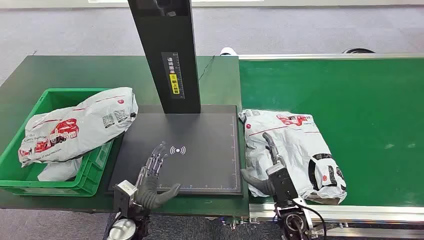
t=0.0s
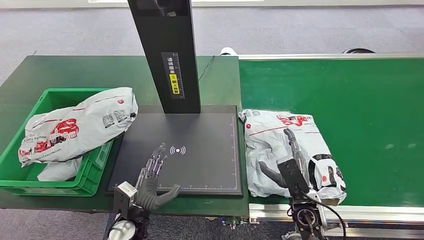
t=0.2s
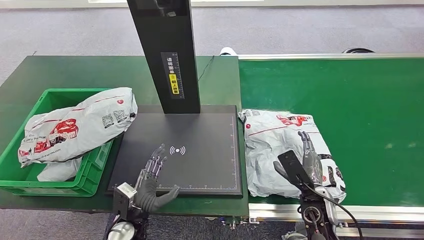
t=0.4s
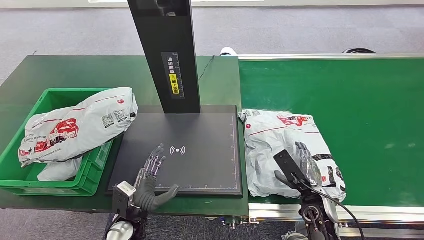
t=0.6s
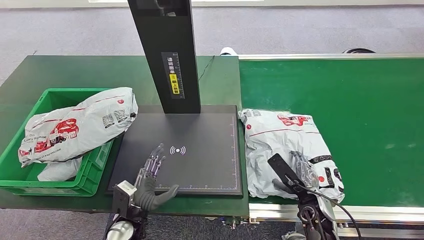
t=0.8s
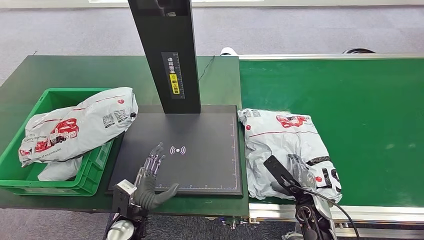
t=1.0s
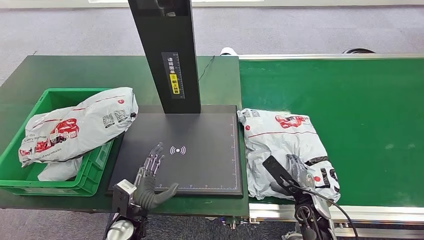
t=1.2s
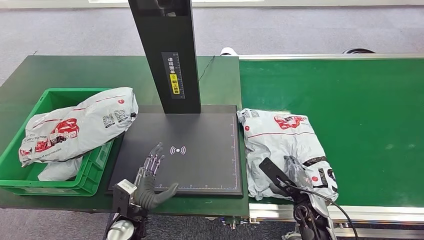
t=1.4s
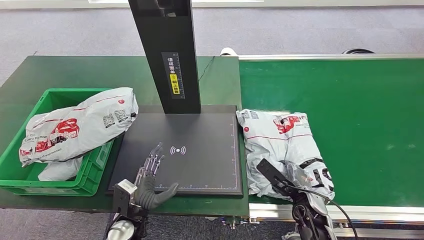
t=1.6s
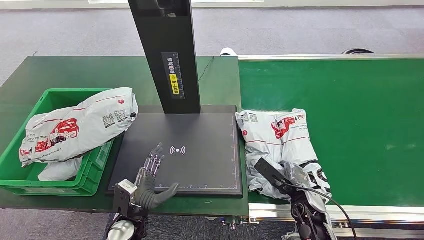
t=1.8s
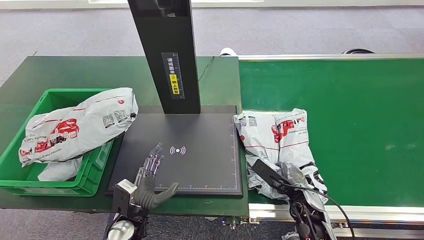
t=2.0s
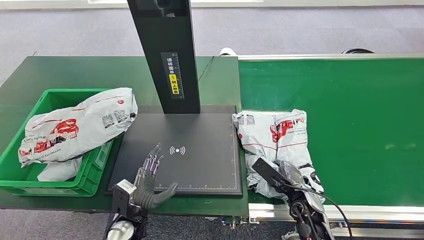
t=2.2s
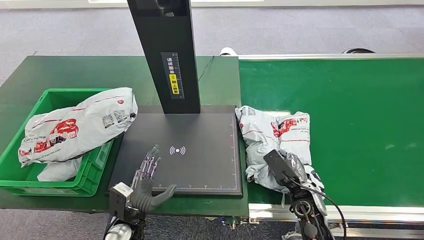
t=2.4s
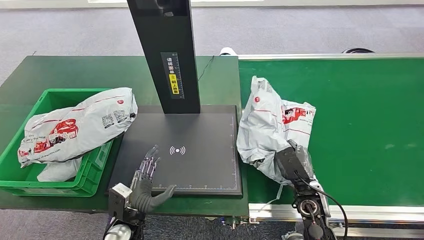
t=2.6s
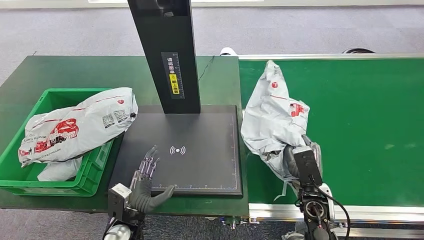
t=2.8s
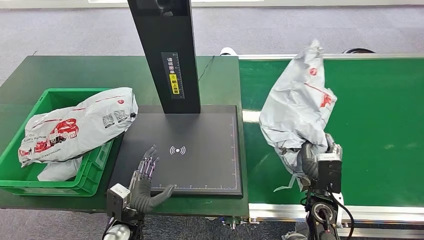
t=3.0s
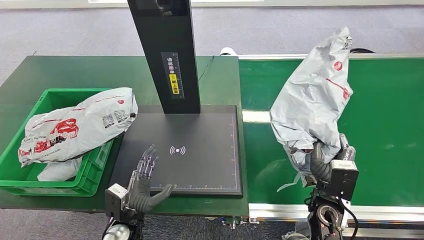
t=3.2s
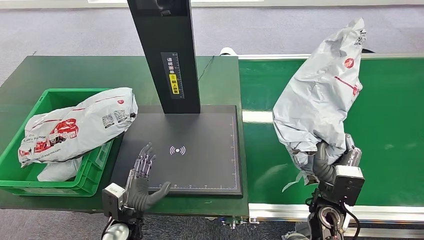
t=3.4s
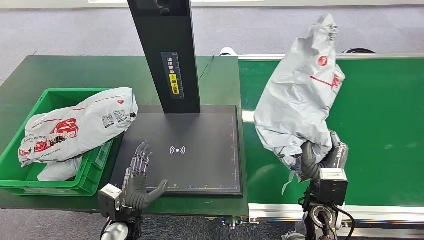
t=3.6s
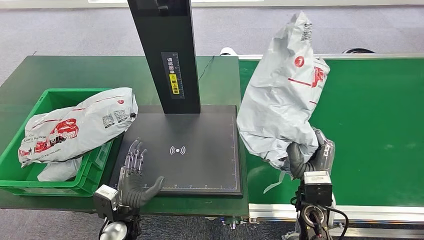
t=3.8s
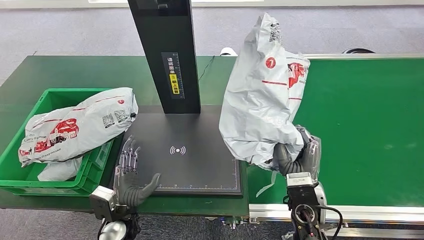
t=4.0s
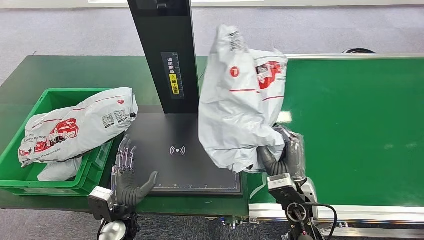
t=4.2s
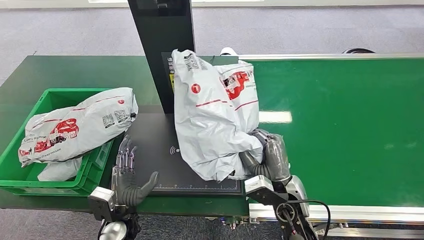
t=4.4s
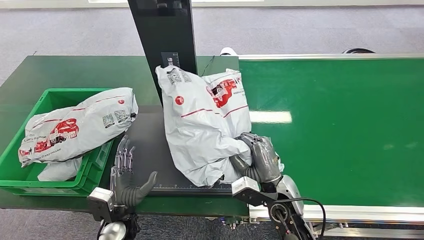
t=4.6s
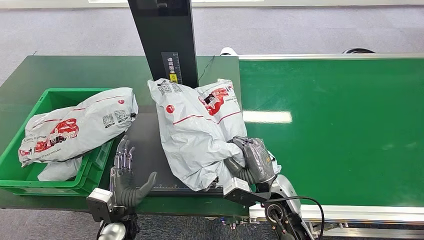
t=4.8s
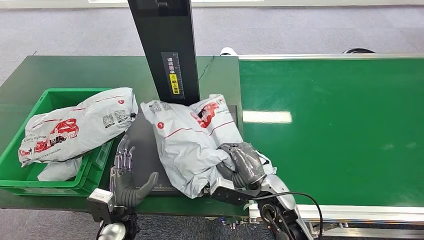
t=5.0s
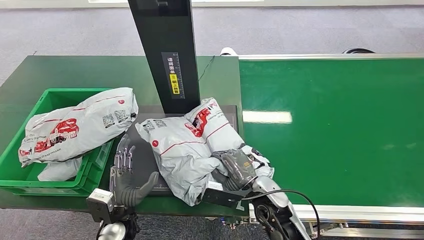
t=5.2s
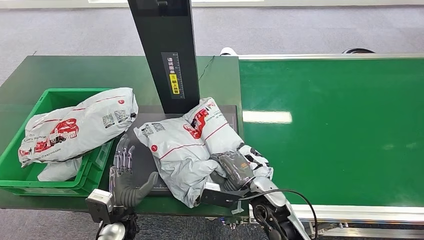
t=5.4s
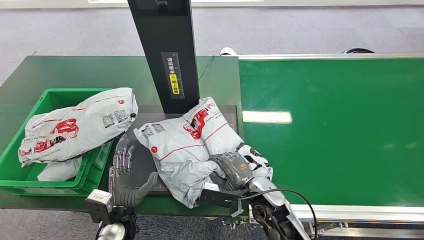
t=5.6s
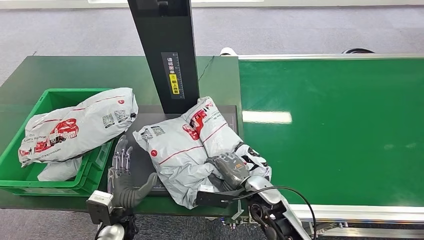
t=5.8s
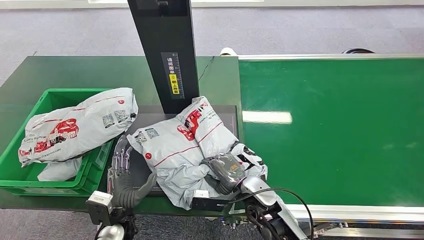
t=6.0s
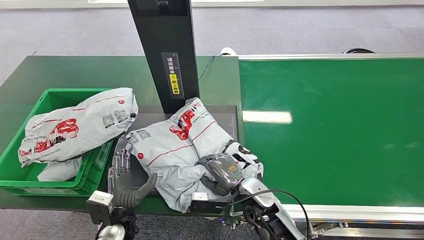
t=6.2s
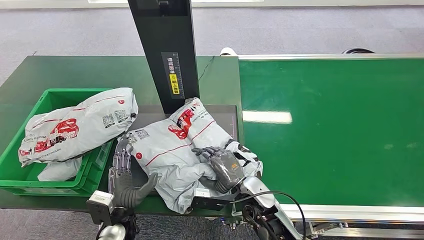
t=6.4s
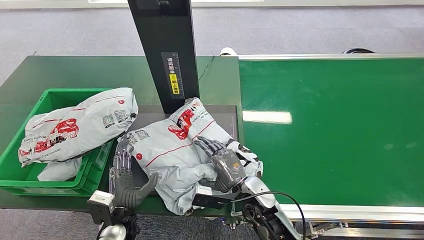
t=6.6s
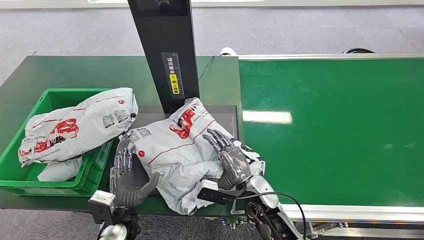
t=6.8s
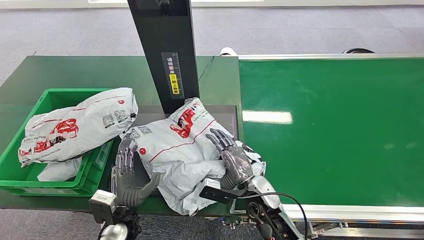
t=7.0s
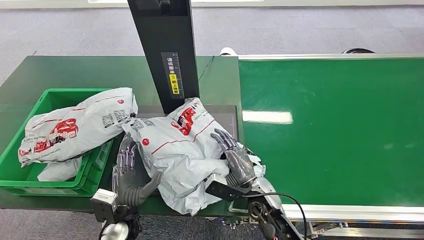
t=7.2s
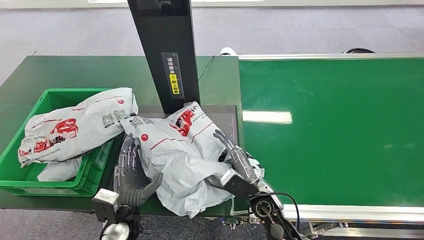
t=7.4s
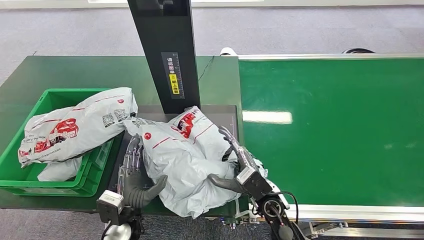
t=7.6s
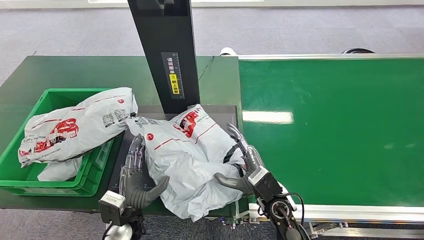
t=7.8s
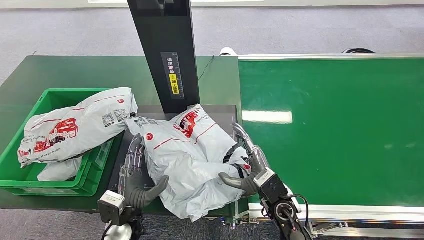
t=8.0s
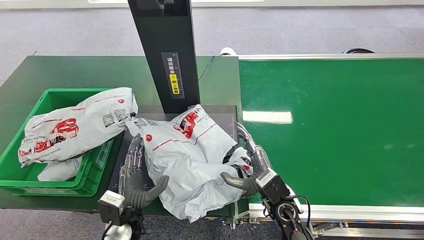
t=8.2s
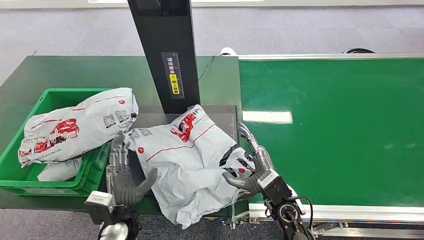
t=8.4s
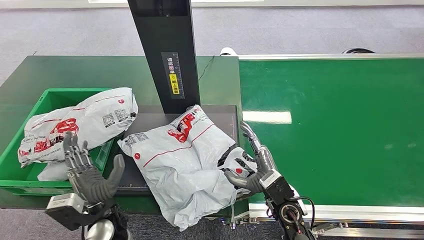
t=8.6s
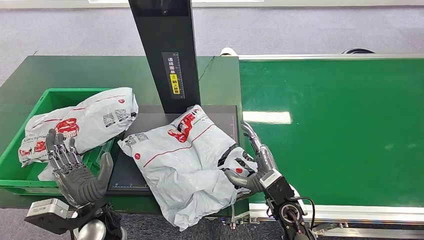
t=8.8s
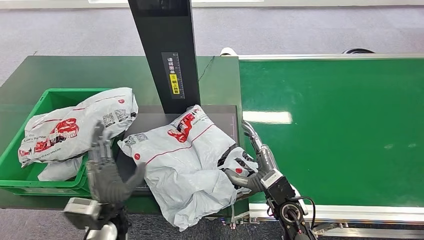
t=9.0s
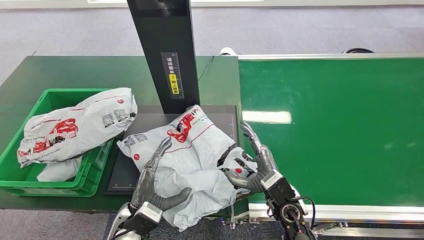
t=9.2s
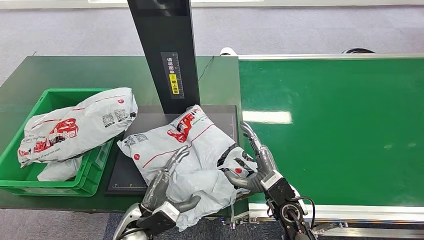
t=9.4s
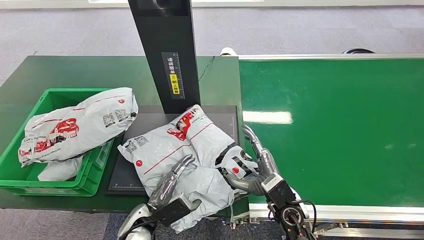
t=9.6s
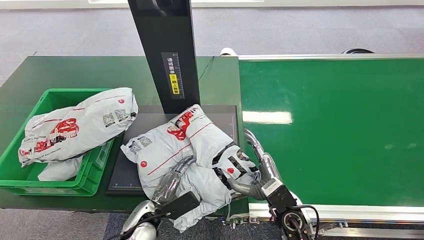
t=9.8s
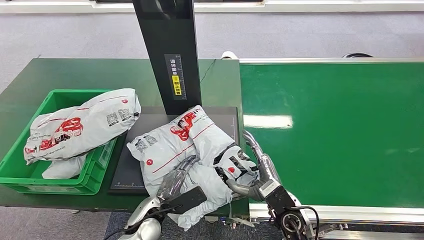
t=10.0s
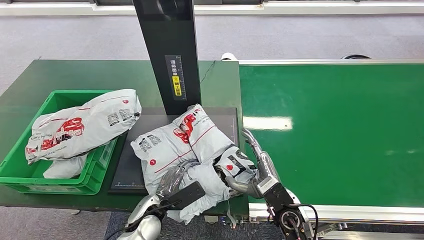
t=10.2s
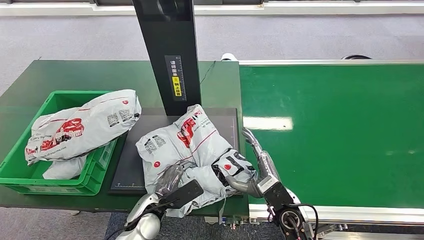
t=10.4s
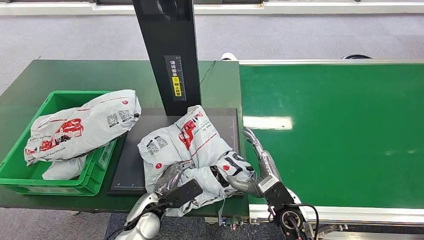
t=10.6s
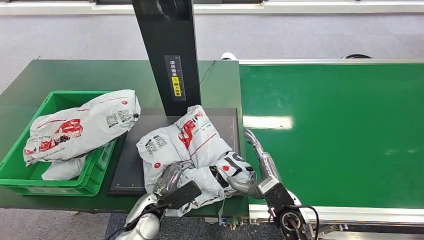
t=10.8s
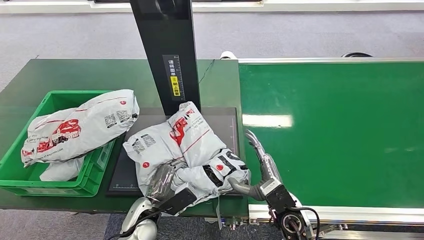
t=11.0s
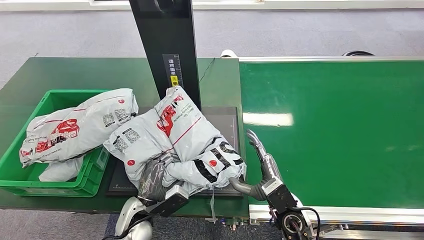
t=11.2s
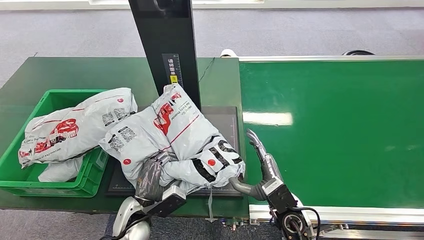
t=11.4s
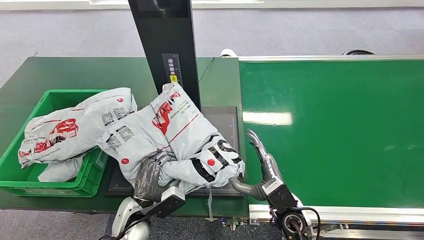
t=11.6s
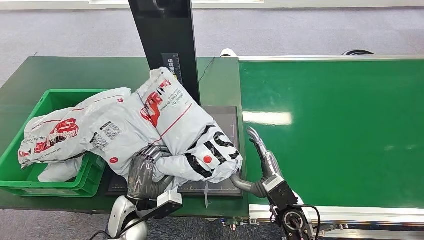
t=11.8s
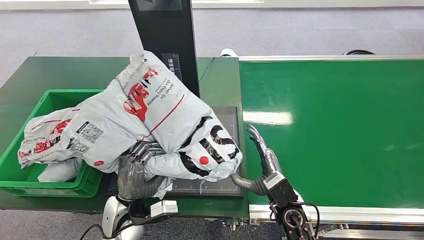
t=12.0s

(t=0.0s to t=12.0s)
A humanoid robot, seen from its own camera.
Step, t=0.0s - t=2.8s: Pick up the package from the conveyor belt.
Step, t=3.0s - t=8.4s: Place the package onto the inbound machine.
t=1.6s - t=3.0s: The right hand is displaced upward by roughly 5 cm.
t=4.4s - t=6.0s: The right hand travels downward by approximately 5 cm.
t=7.6s - t=9.0s: The left hand goes about 5 cm upward.

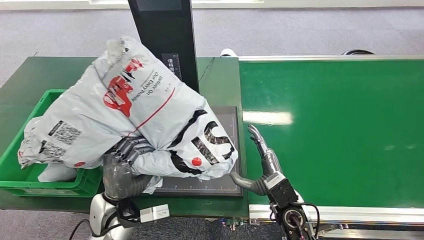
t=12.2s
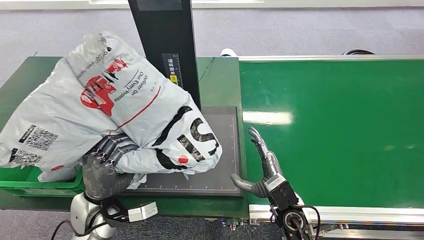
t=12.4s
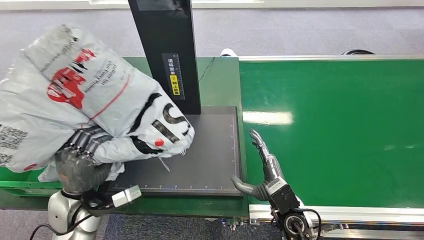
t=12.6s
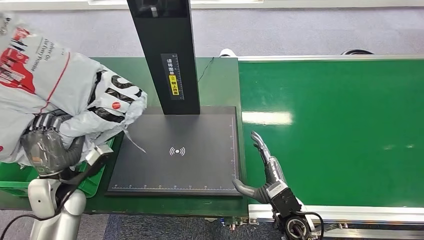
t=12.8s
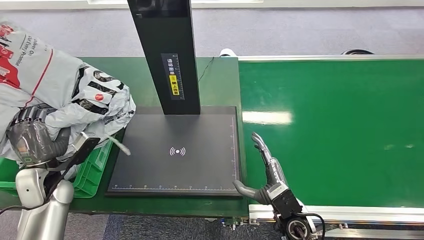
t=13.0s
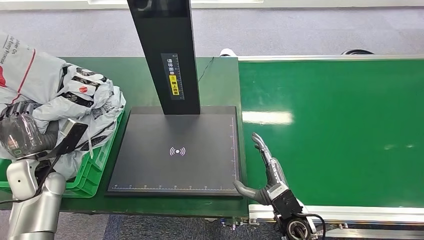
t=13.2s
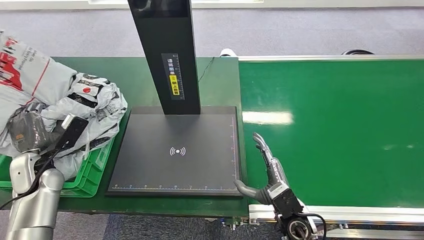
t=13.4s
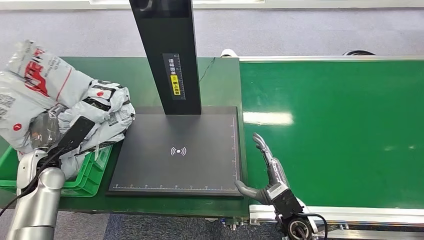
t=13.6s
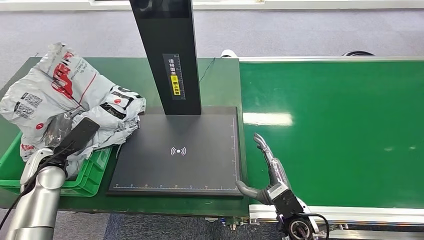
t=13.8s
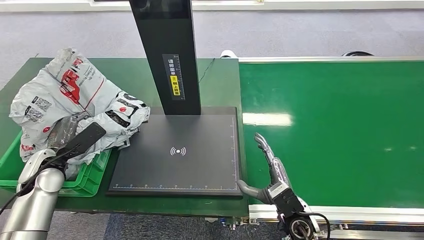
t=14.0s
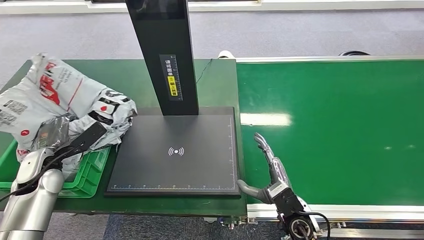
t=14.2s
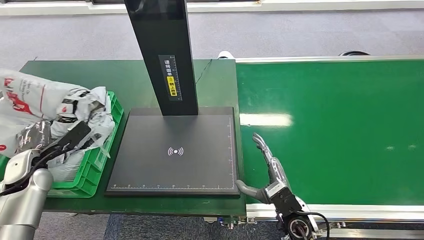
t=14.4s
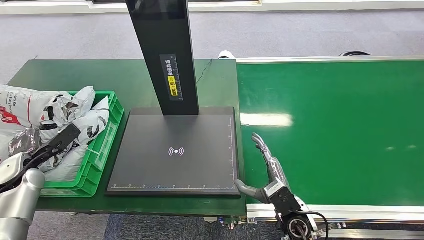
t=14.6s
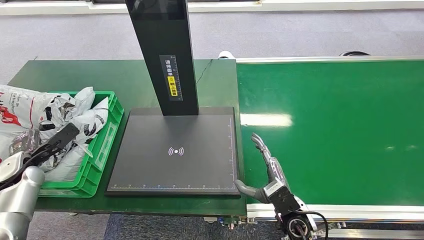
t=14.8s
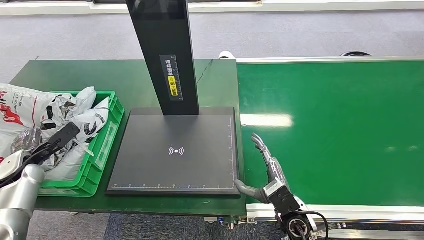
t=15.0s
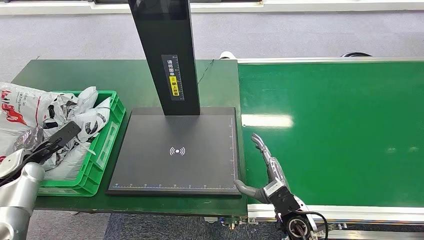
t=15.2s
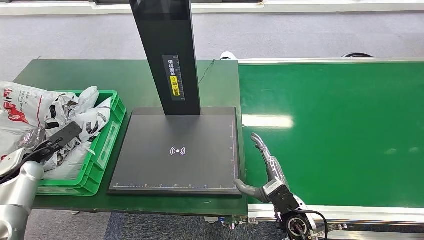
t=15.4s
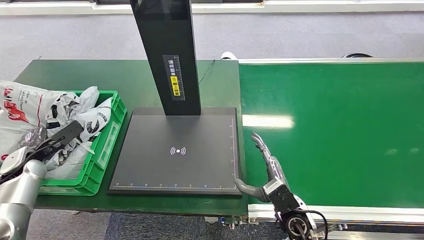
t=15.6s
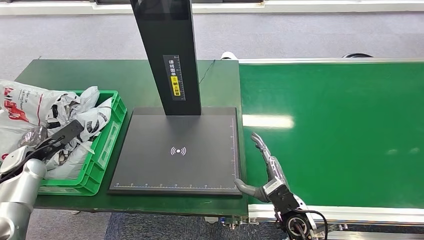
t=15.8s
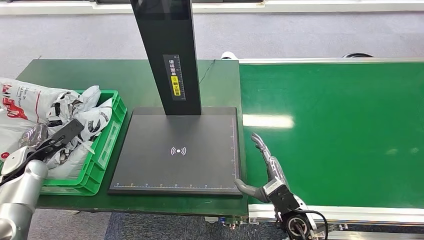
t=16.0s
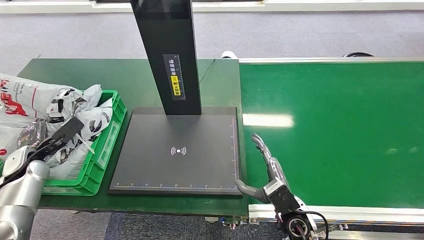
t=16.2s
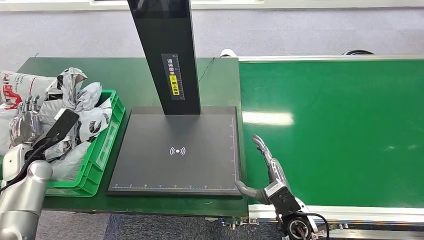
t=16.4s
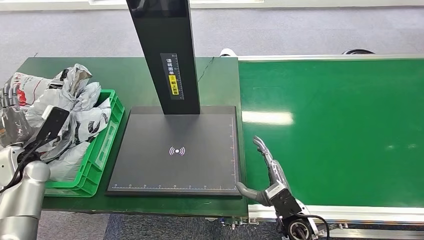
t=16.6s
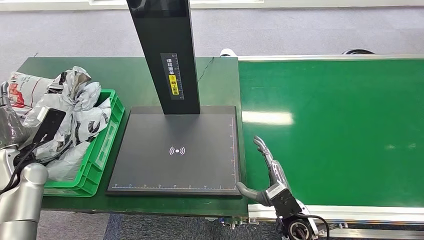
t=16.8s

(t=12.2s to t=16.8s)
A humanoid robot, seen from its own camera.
t=15.2s - t=16.8s: The left hand shifts about 5 cm upward.
